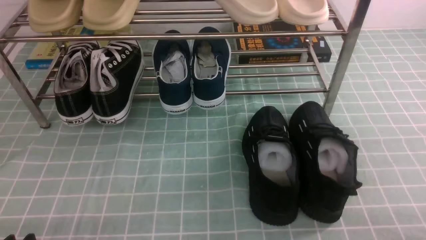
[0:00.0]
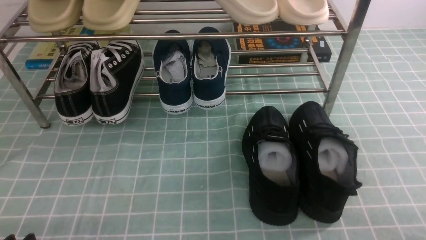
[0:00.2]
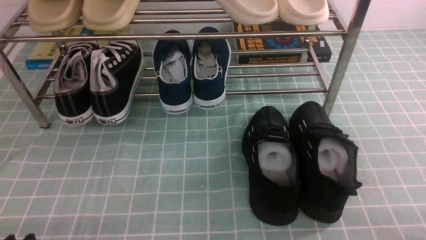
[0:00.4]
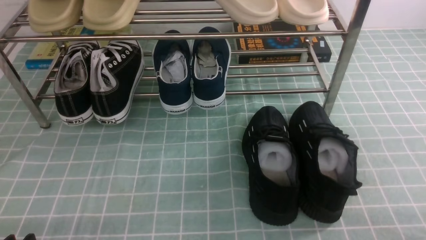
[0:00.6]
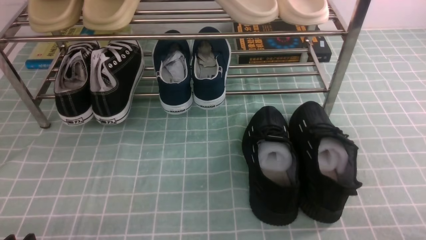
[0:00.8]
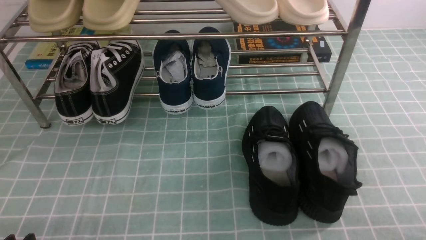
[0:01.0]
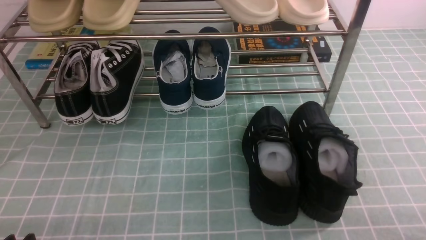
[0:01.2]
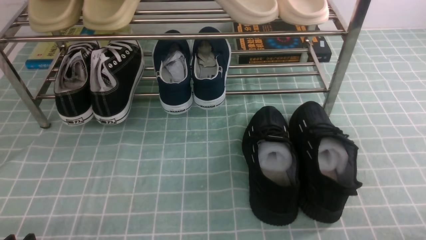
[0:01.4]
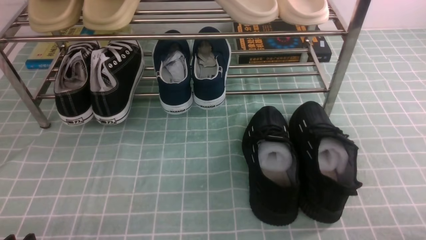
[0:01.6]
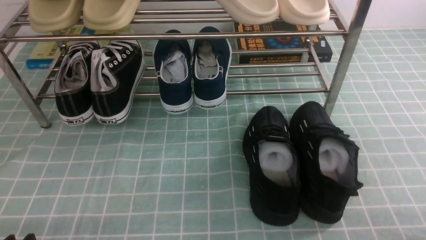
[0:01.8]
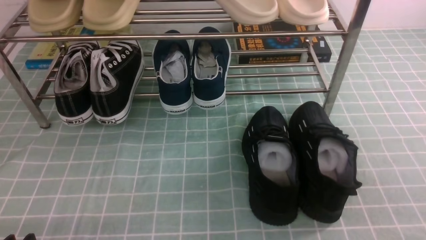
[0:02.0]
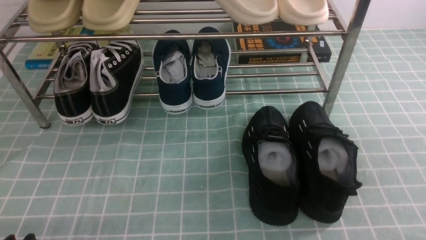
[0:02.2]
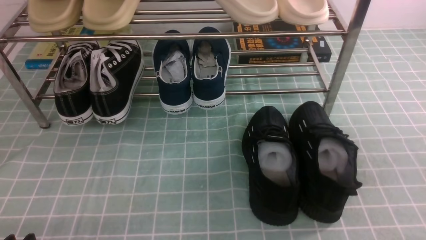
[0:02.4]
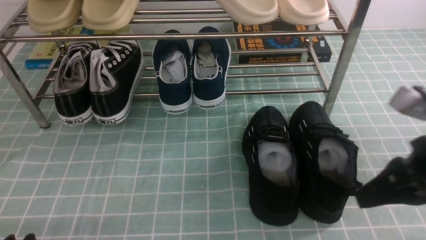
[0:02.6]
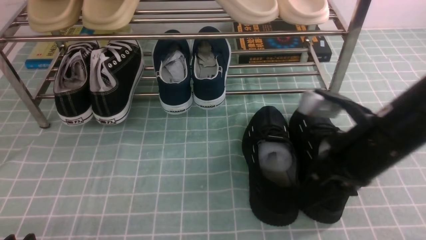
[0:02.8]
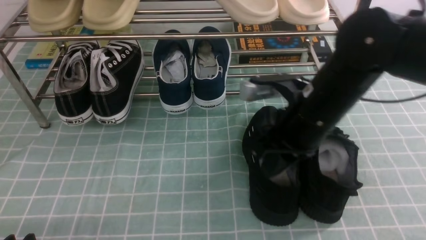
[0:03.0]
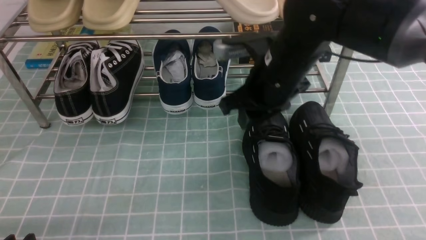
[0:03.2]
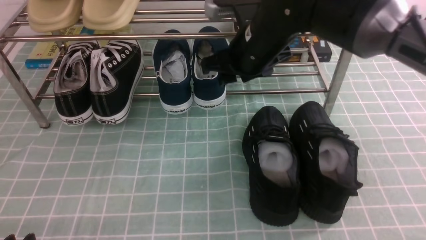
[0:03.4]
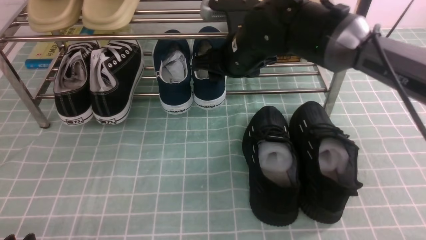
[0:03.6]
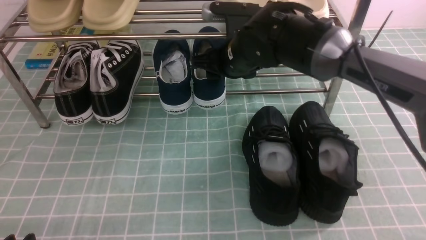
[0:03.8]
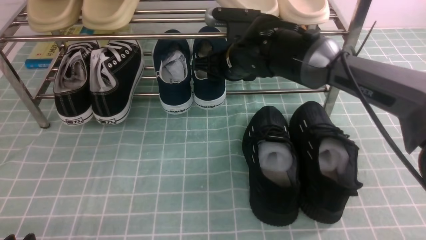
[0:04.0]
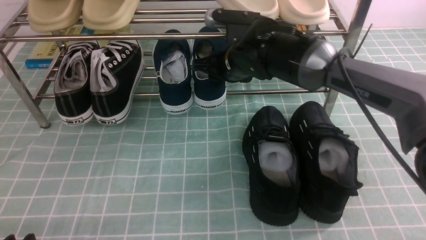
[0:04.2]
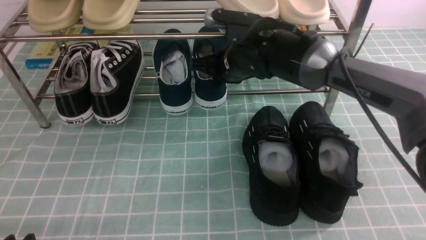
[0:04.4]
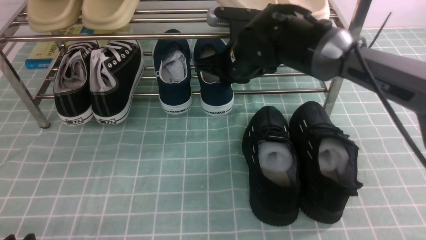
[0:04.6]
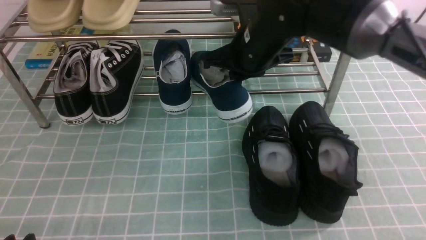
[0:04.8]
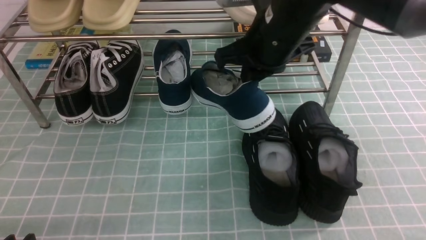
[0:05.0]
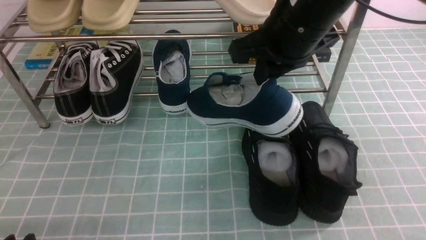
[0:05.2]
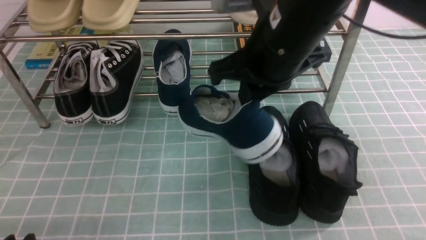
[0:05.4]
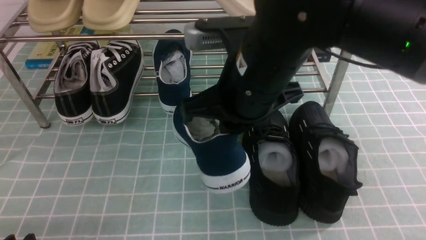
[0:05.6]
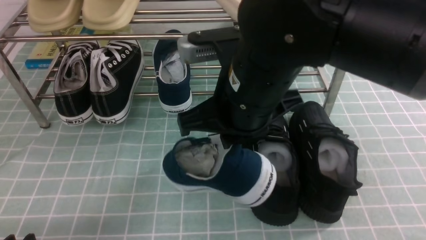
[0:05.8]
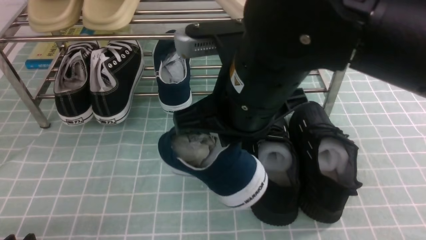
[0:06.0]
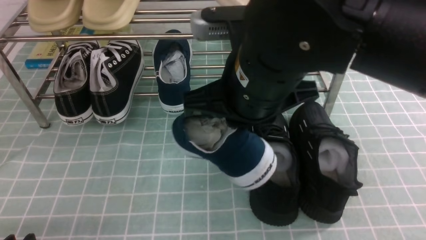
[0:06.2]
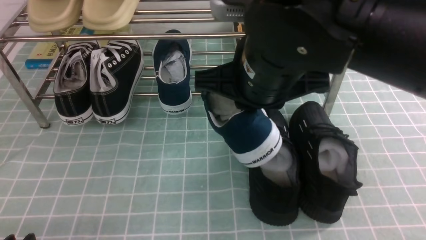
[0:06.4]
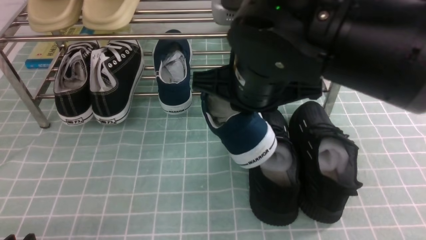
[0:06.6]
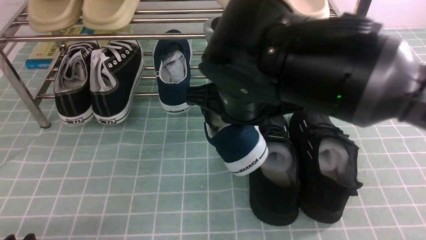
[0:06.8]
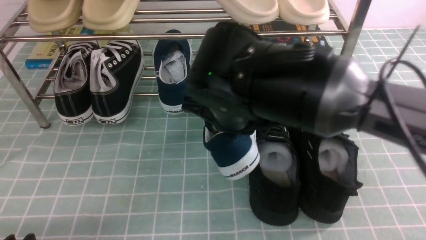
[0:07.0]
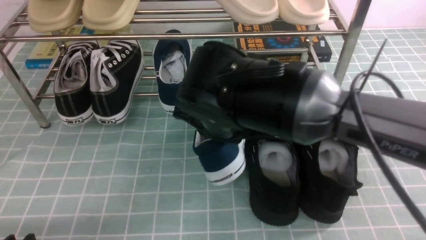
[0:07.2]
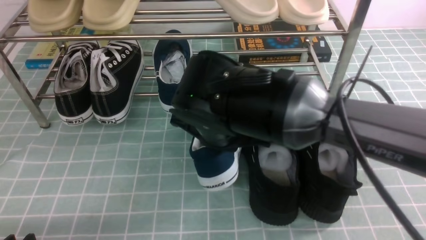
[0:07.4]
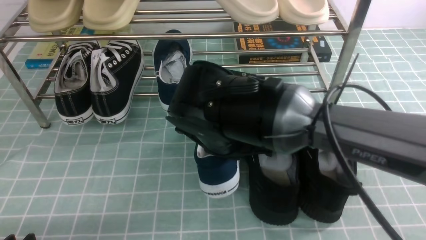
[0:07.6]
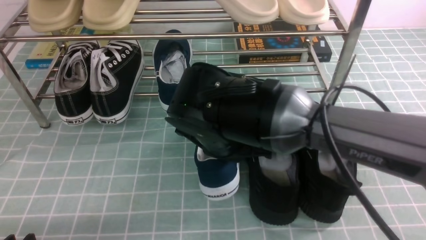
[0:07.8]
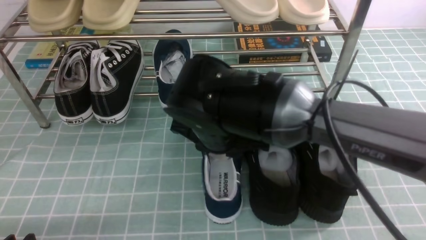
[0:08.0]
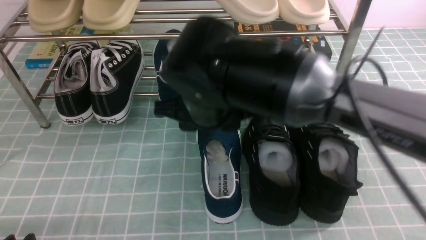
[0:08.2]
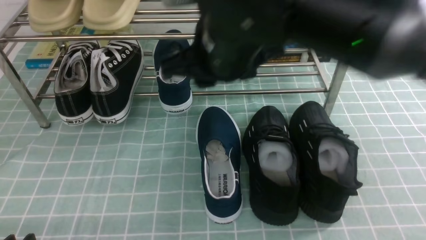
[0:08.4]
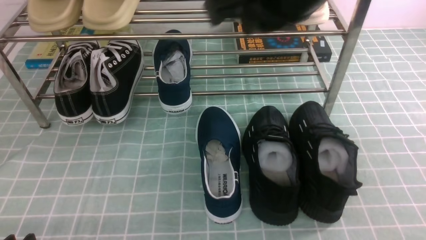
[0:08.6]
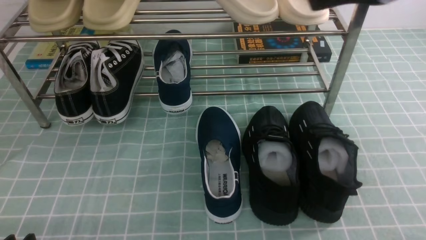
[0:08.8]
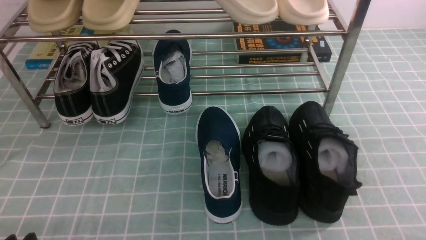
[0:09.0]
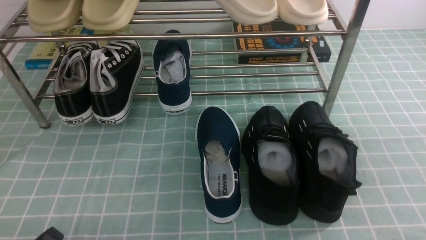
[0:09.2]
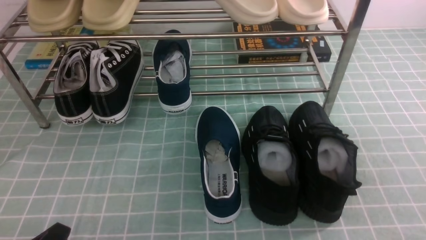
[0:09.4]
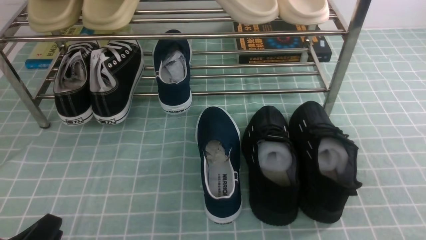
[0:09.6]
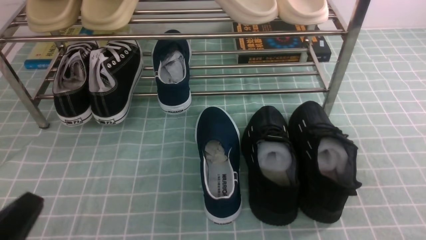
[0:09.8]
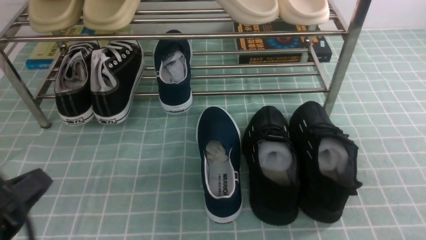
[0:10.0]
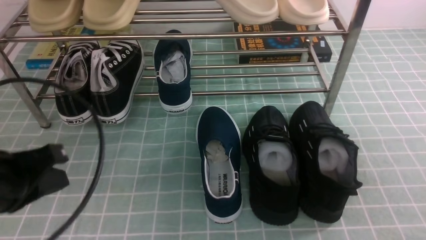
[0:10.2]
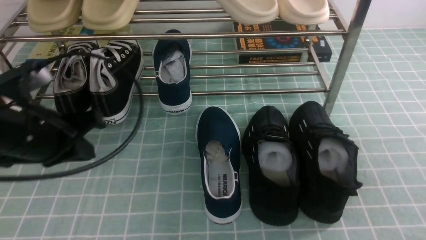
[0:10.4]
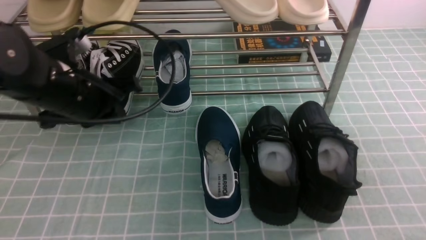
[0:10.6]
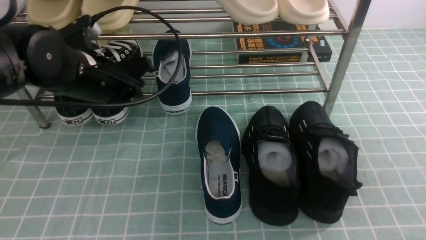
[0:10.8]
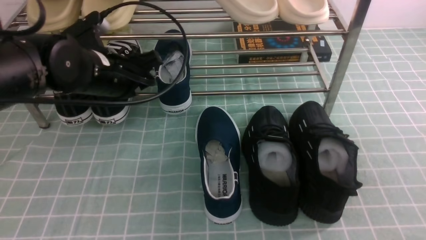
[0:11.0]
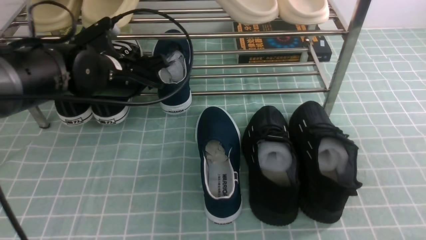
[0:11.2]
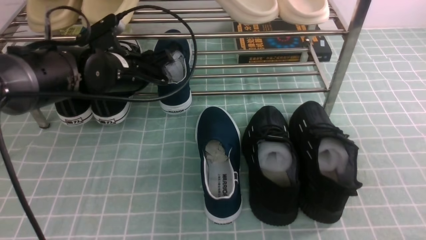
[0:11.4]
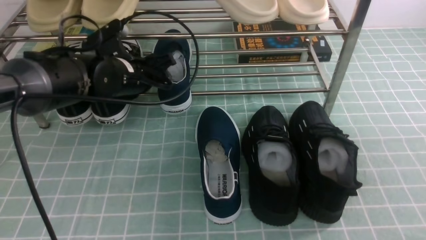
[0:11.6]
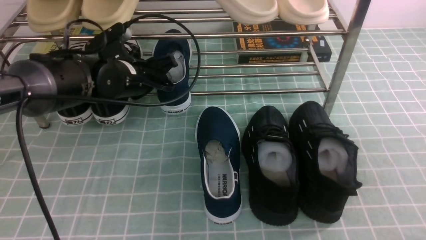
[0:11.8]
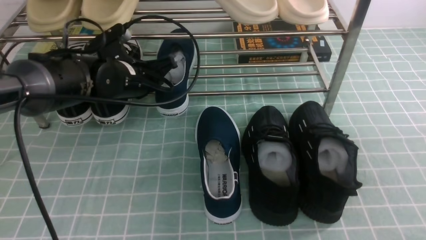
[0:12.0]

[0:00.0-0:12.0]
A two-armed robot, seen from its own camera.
Step, 0:00.0 to 0:04.2: use the right arm to clamp a shoe in the middle of the shoe rack.
Step, 0:04.4 to 0:08.0: use the right arm to take out the clamped shoe from the shoe rack and put it down.
Step, 0:08.4 to 0:11.8: use the left arm to clamp a shoe in the middle of the shoe rack.
0:01.6 to 0:03.0: The right gripper moves forward, to the left and upward, roughly 30 cm, and closes up.
0:03.0 to 0:04.4: The right gripper heads forward and to the left, covering about 20 cm, and opens and closes again.
0:04.4 to 0:06.0: The right gripper goes some 25 cm backward and upward.
0:06.0 to 0:07.6: The right gripper moves downward, some 10 cm.
0:07.6 to 0:09.0: The right gripper heads upward, to the right and backward, covering some 35 cm, and opens, then closes once more.
0:09.0 to 0:10.4: The left gripper shifts approximately 20 cm forward and upward, and closes.
0:10.4 to 0:12.0: The left gripper shifts approximately 20 cm forward and to the right, and opens up.

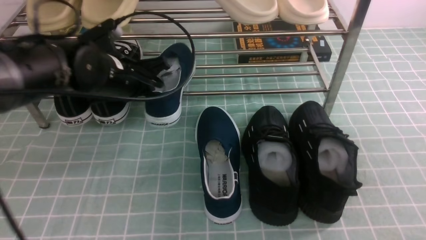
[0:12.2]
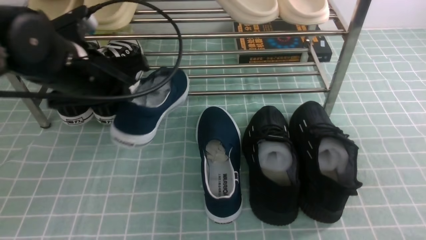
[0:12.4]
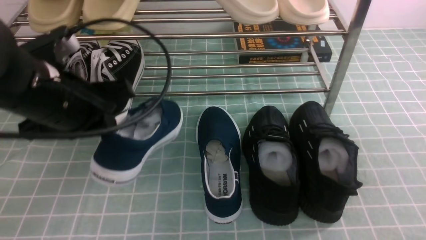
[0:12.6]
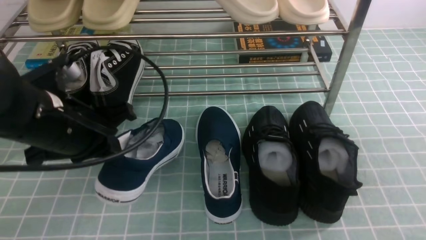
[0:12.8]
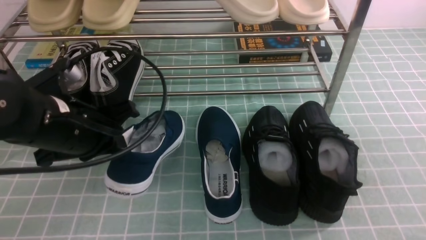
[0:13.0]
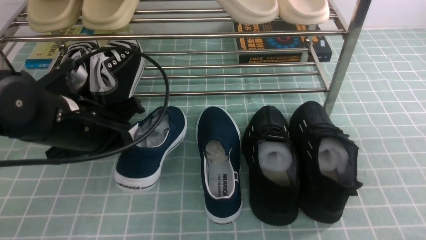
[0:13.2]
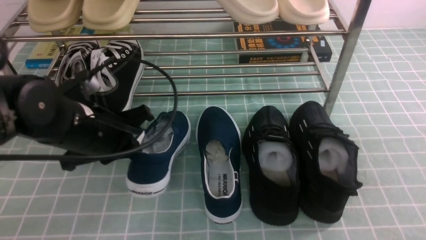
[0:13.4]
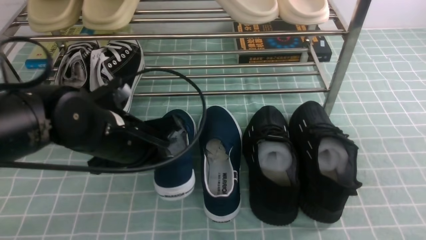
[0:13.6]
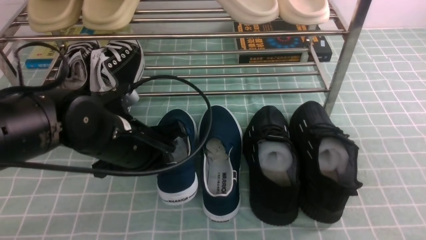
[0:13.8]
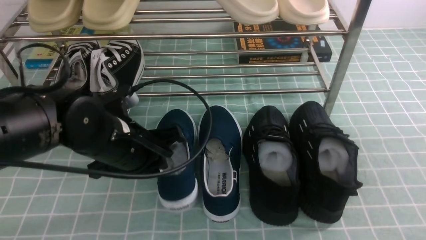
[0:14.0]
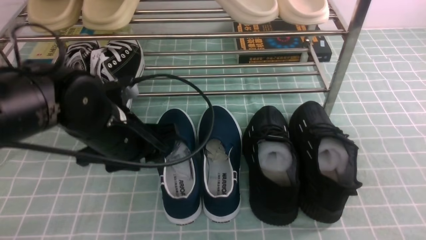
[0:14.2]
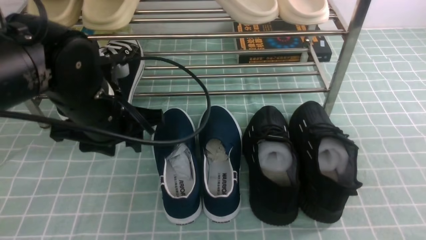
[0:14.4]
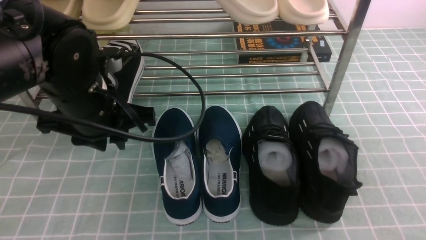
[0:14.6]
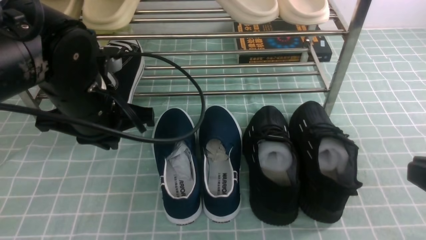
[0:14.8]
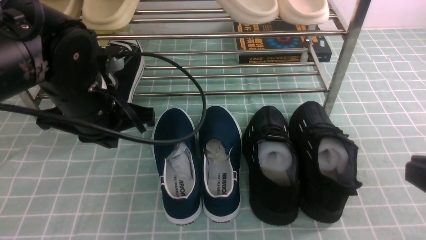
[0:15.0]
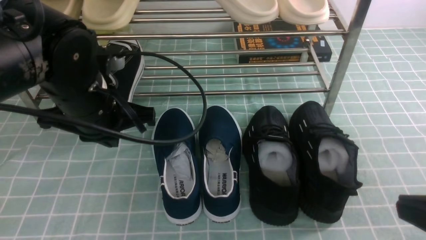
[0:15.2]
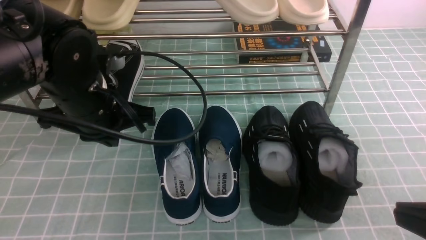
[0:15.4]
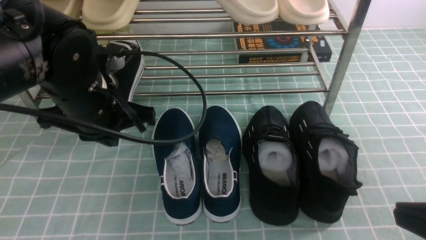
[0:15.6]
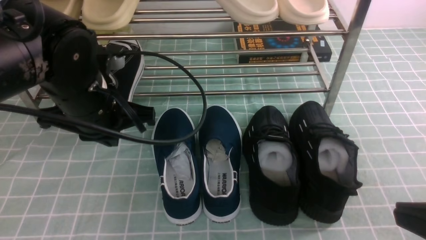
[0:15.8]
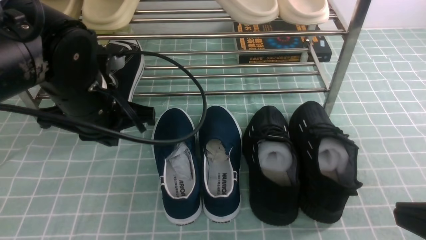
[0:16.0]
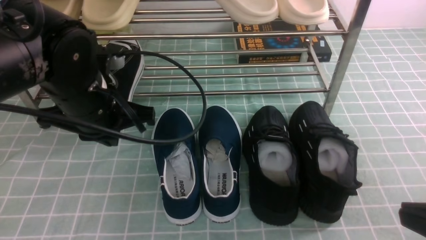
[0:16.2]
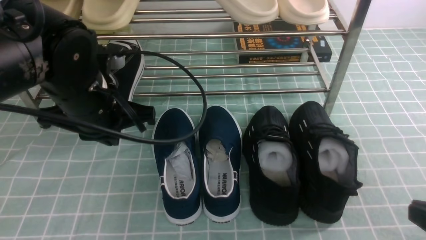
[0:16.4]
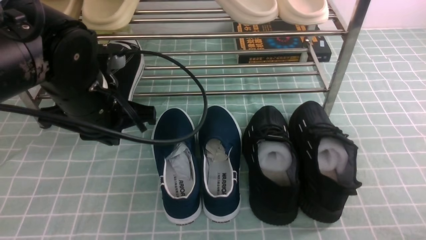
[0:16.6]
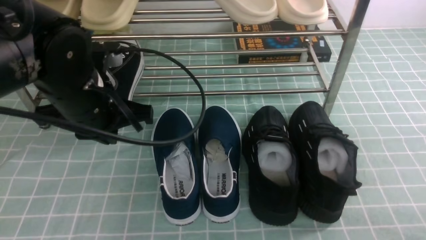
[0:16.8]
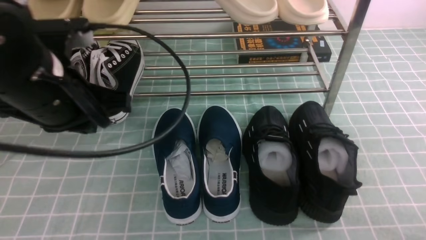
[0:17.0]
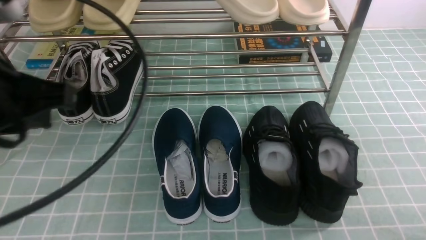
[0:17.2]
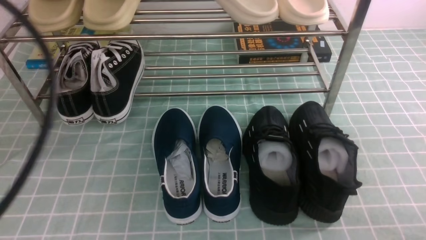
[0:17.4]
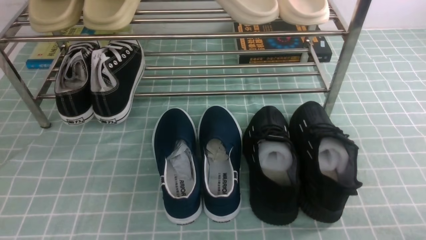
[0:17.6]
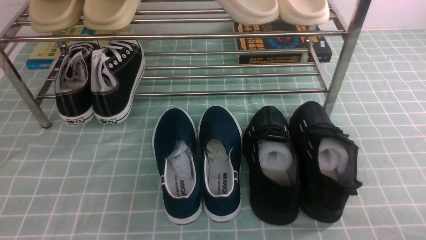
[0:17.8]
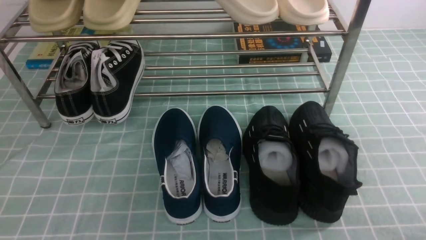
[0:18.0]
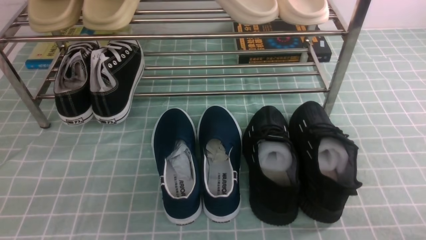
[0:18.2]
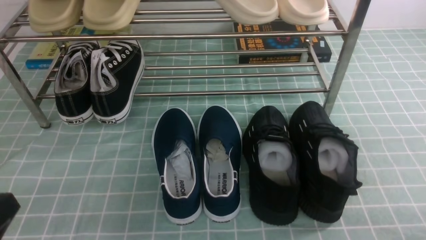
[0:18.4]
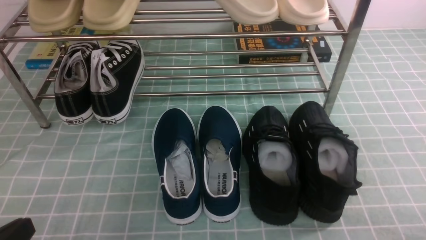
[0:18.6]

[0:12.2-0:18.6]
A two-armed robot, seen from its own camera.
Step, 0:12.2 to 0:14.2: Use your left arm to remove the clamped shoe from the shoe rack and put it down.
0:12.2 to 0:13.8: The left gripper moves backward, about 10 cm.
0:13.8 to 0:15.4: The left gripper goes approximately 5 cm upward, and opens, then closes once more.
0:15.4 to 0:17.0: The left gripper ends up approximately 5 cm from where it was. The right gripper shifts about 15 cm downward and to the right.
0:17.0 to 0:18.6: The left gripper moves backward, to the left and downward, some 25 cm.
